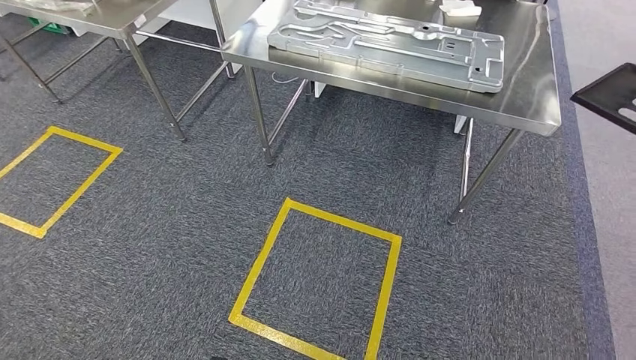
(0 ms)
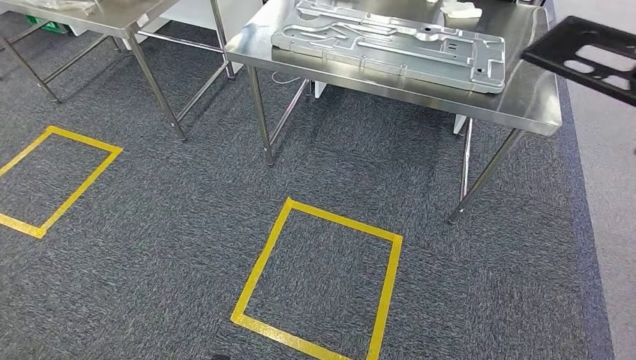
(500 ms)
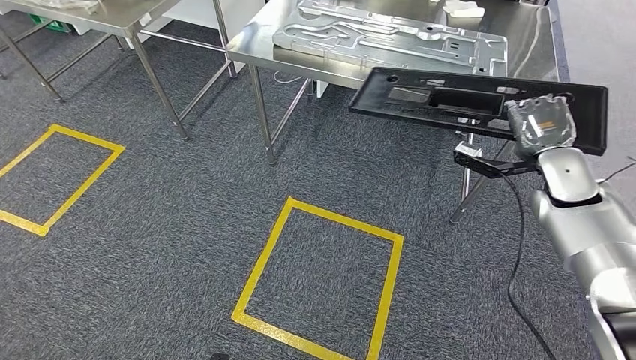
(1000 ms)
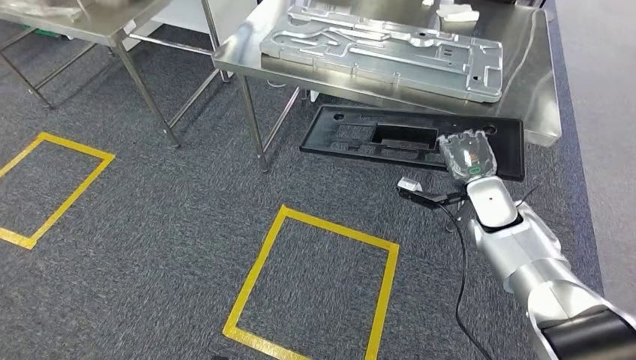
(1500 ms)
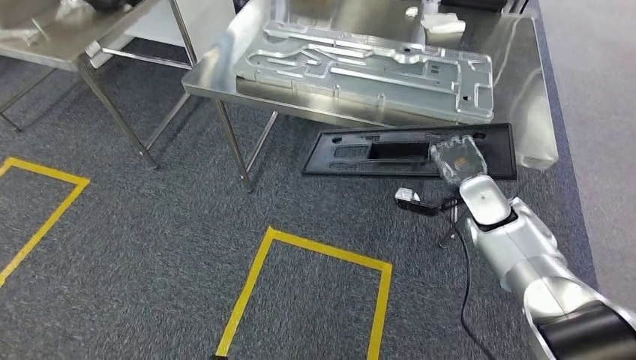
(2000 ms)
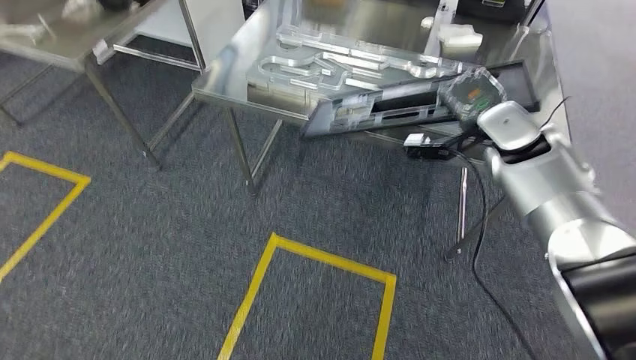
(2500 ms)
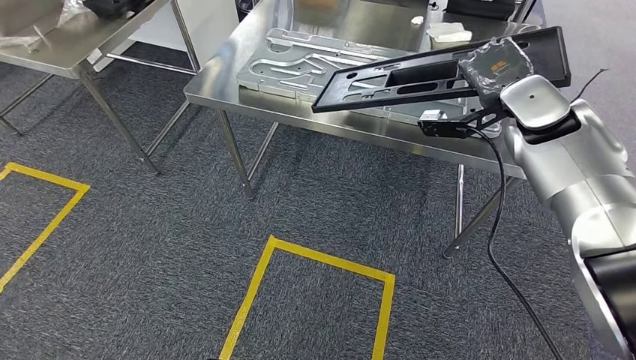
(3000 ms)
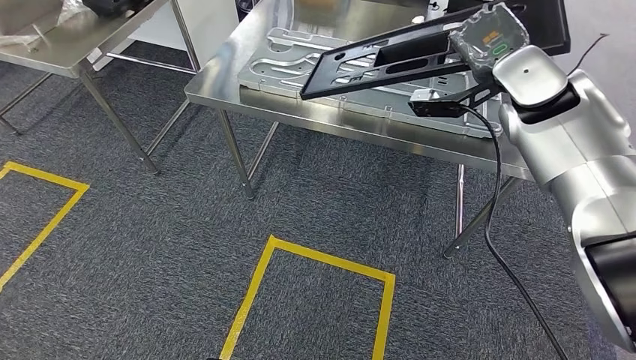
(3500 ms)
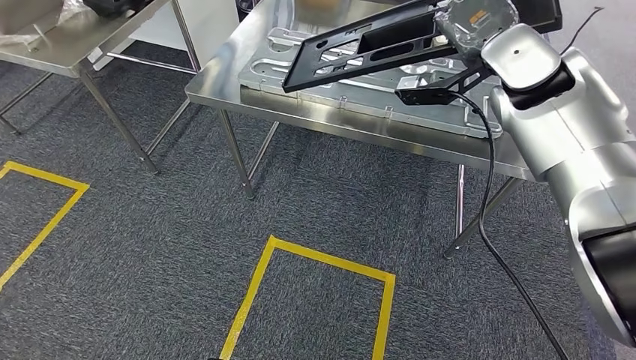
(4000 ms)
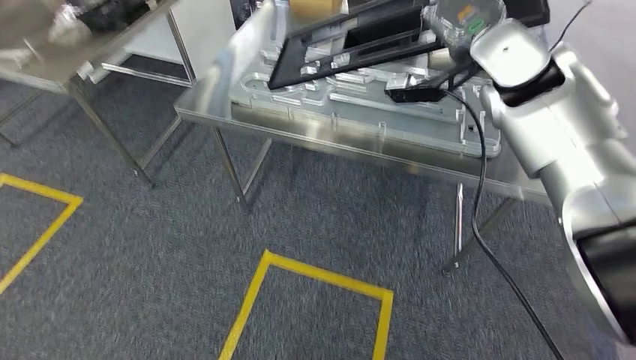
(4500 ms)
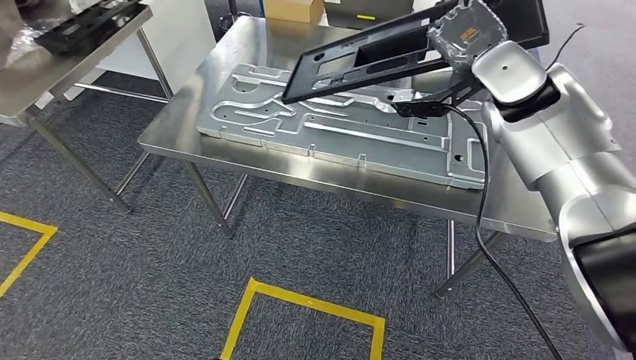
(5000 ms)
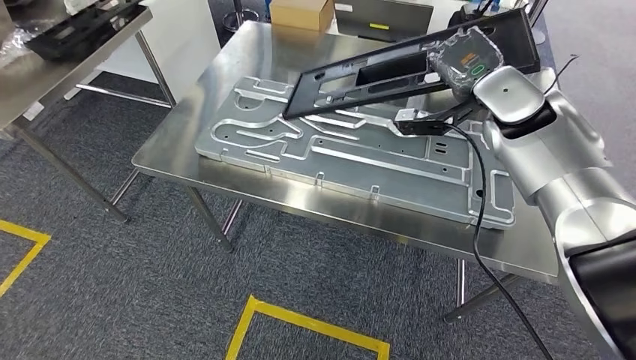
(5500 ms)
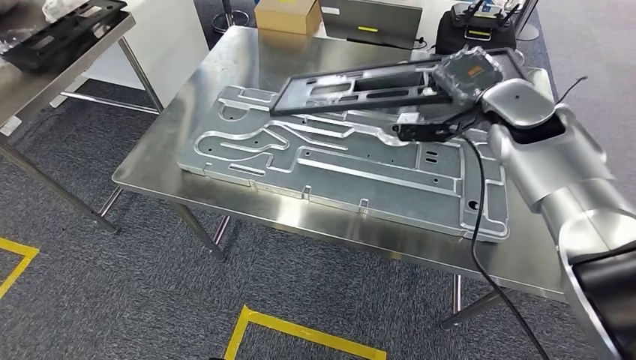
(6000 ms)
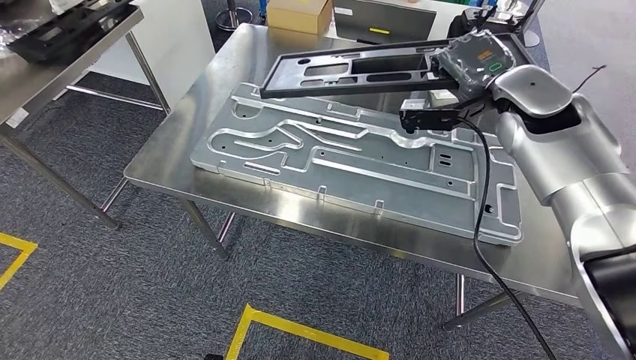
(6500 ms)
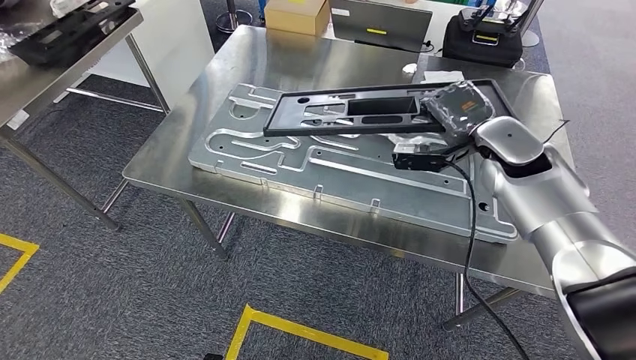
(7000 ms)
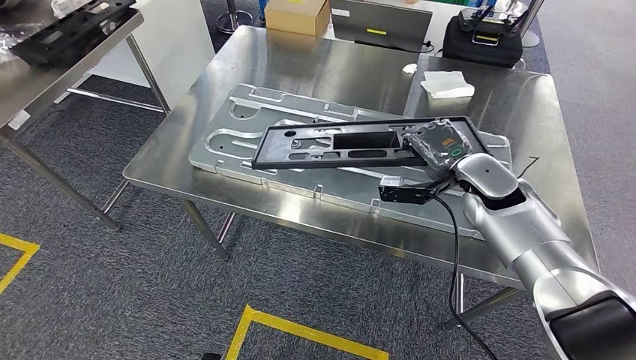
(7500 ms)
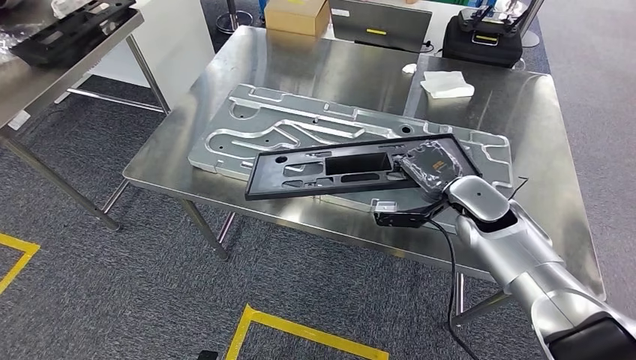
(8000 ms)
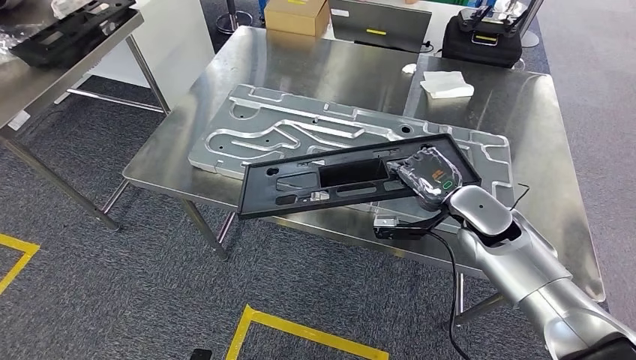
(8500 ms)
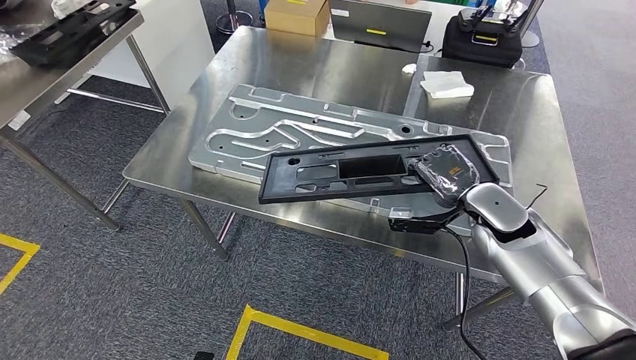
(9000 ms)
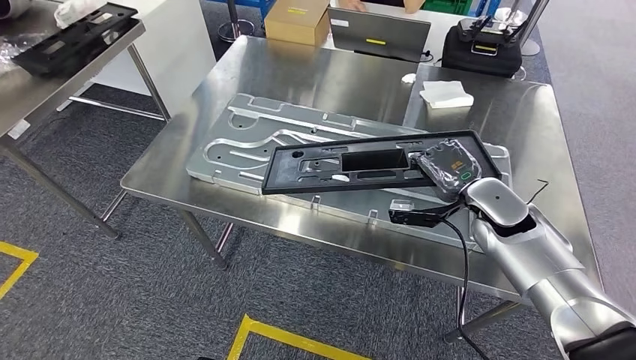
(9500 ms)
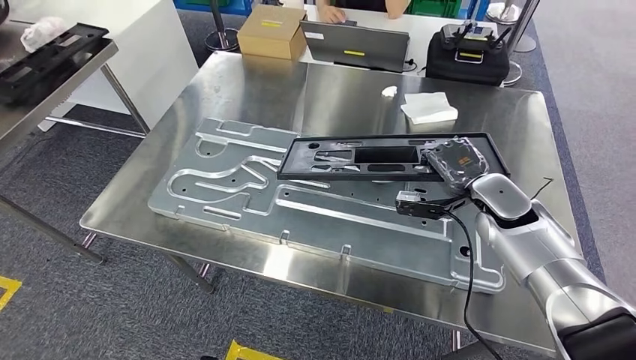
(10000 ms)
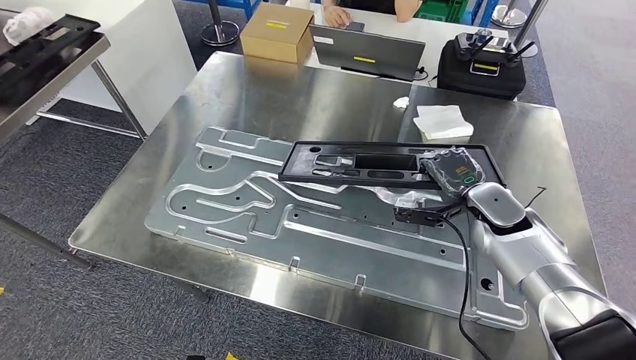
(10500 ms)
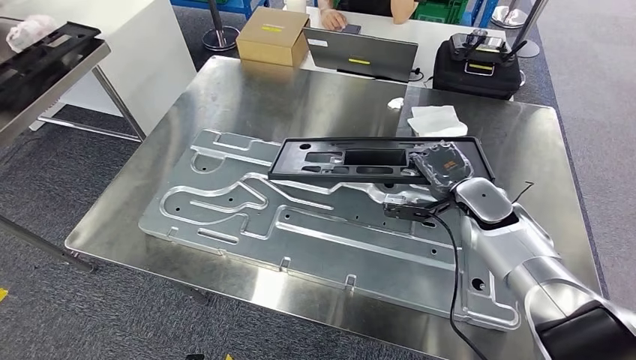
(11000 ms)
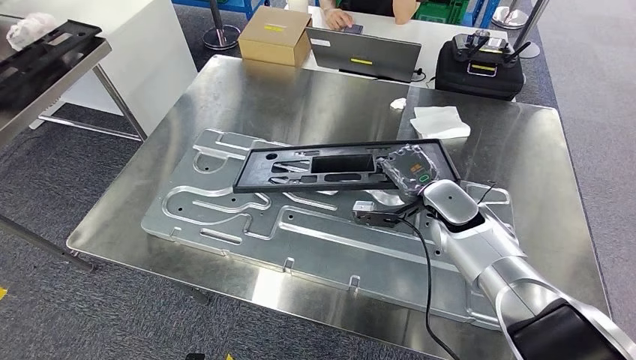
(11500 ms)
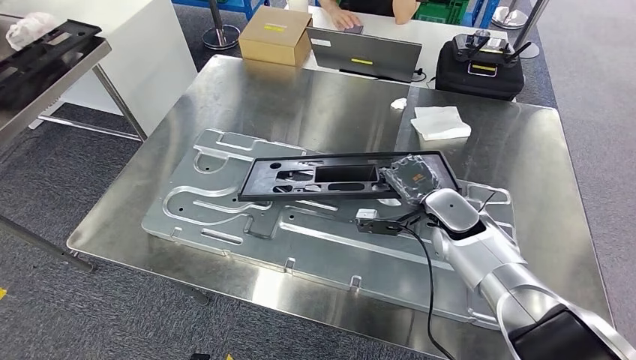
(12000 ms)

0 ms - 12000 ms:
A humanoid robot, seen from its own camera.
Step, 0 ms - 4000 ms: Move the large material to the workbench.

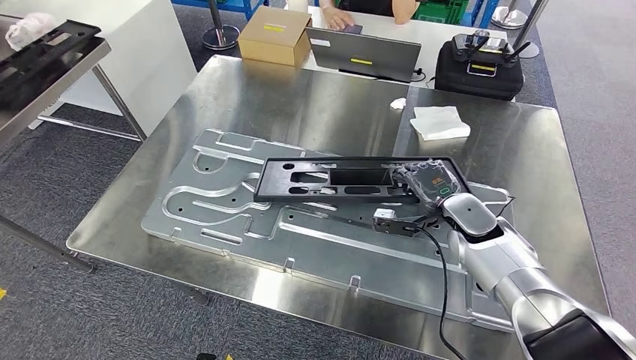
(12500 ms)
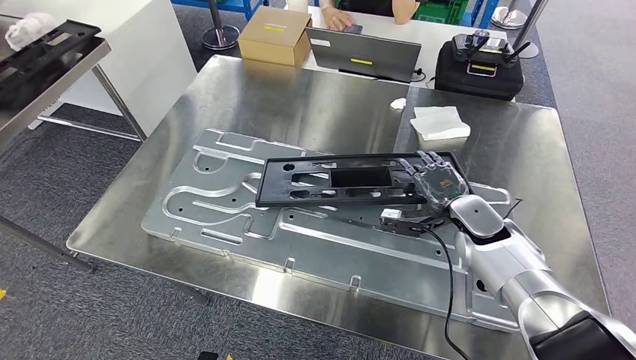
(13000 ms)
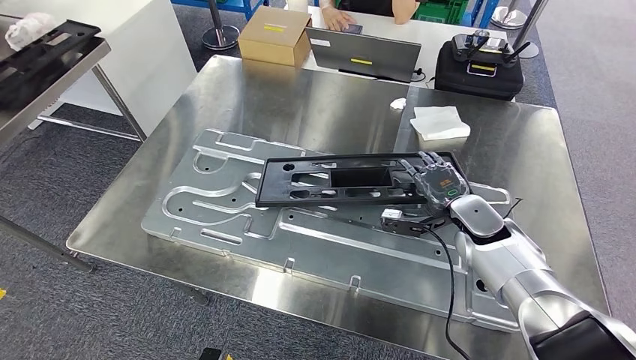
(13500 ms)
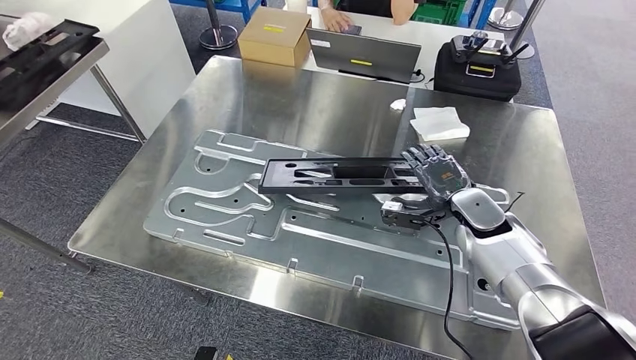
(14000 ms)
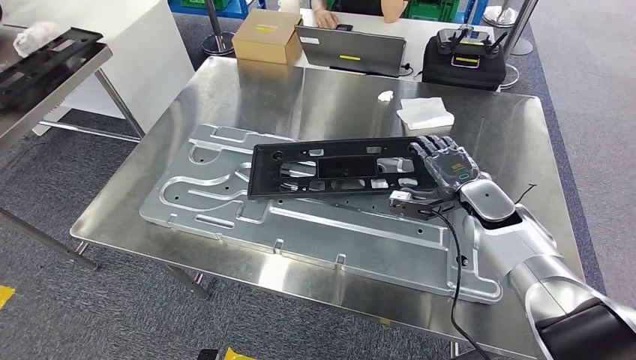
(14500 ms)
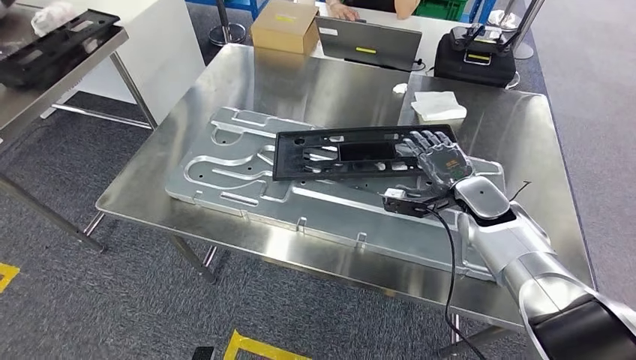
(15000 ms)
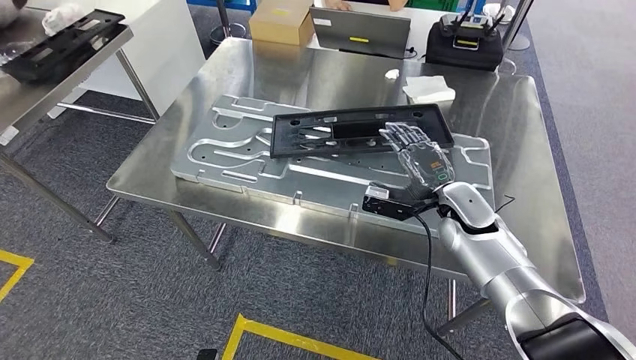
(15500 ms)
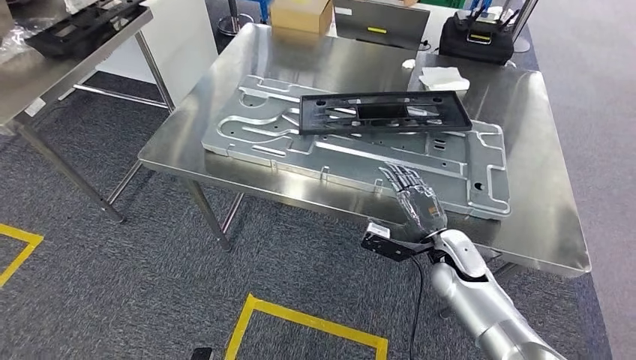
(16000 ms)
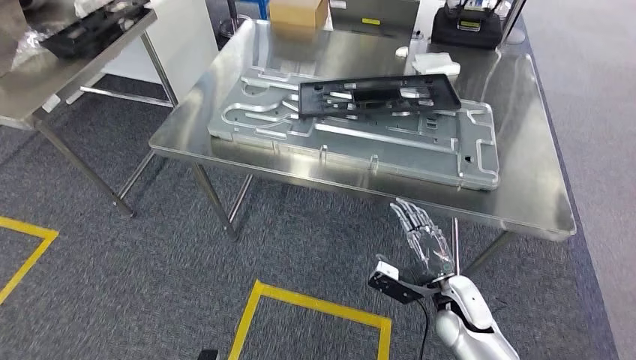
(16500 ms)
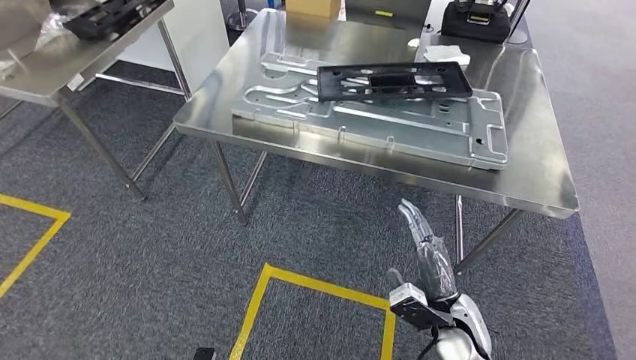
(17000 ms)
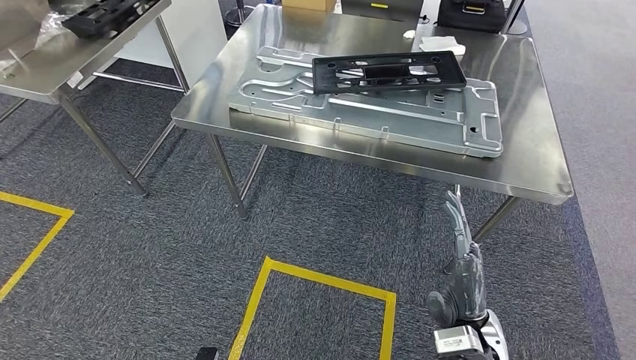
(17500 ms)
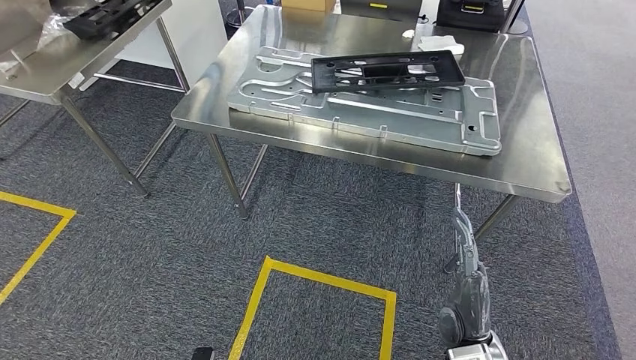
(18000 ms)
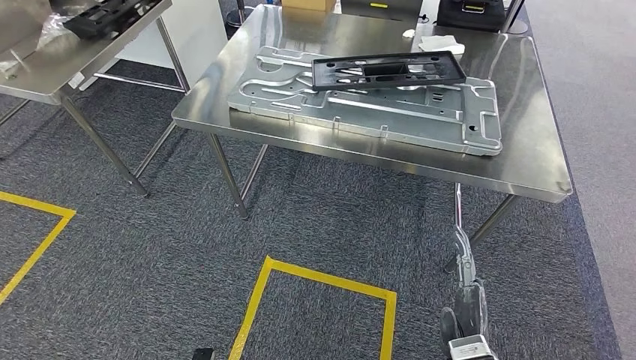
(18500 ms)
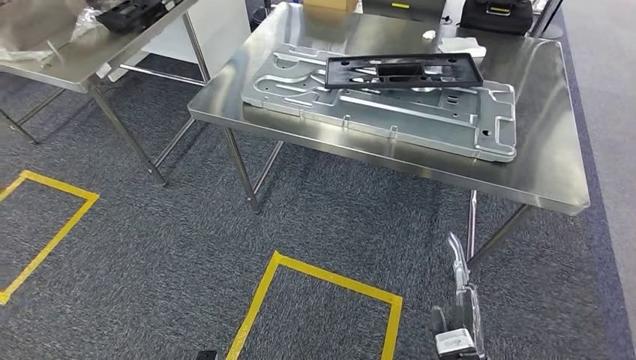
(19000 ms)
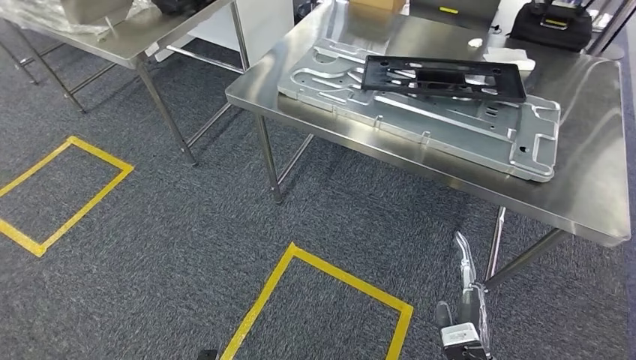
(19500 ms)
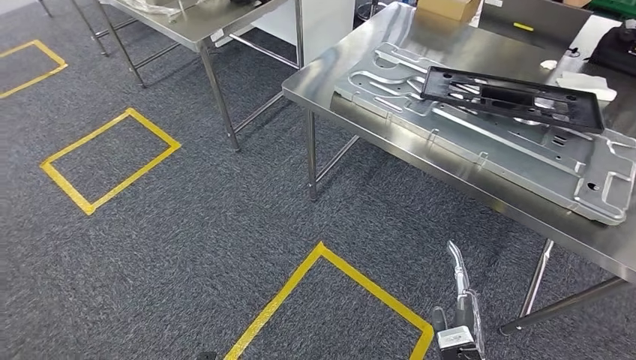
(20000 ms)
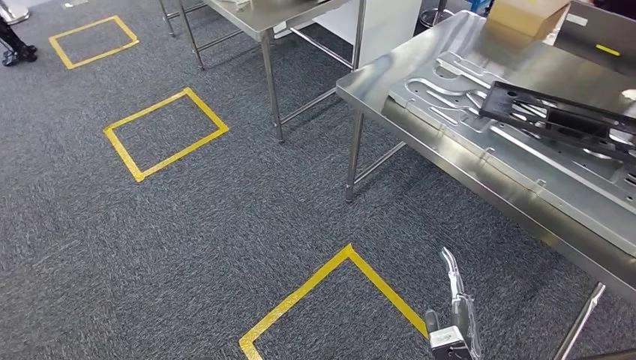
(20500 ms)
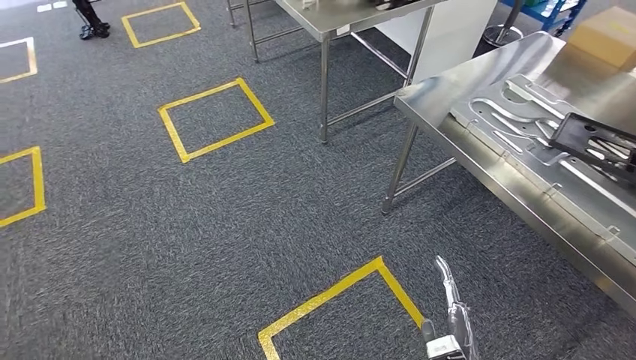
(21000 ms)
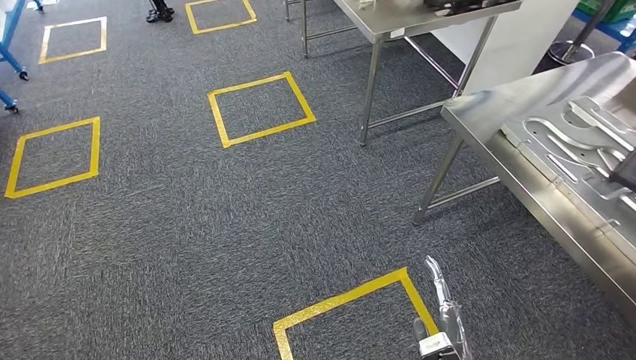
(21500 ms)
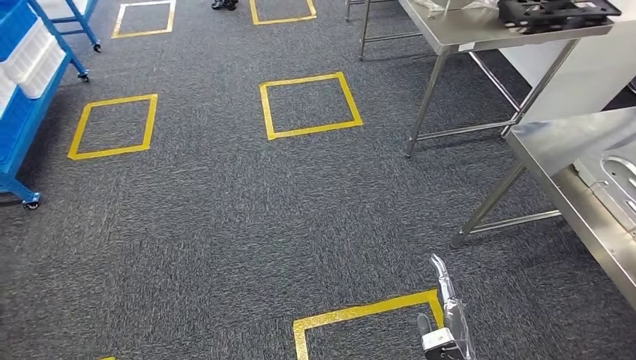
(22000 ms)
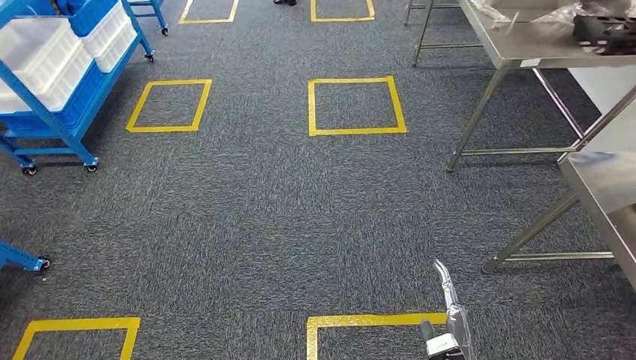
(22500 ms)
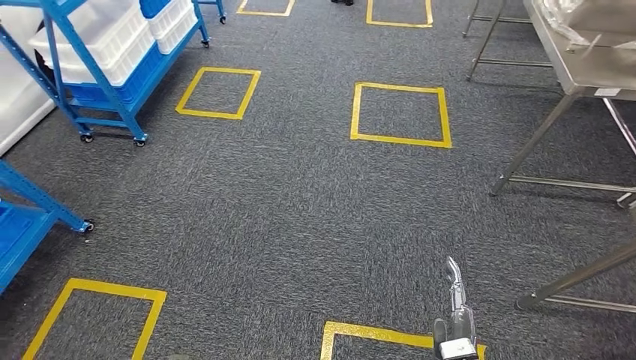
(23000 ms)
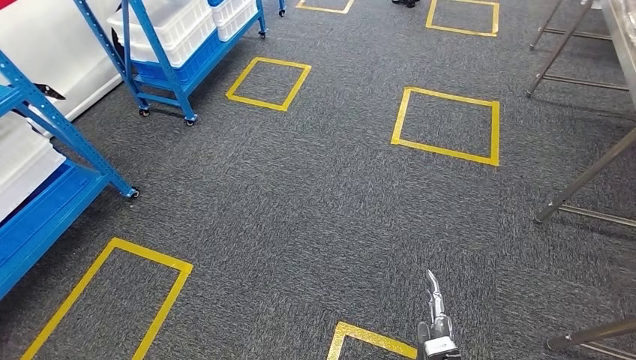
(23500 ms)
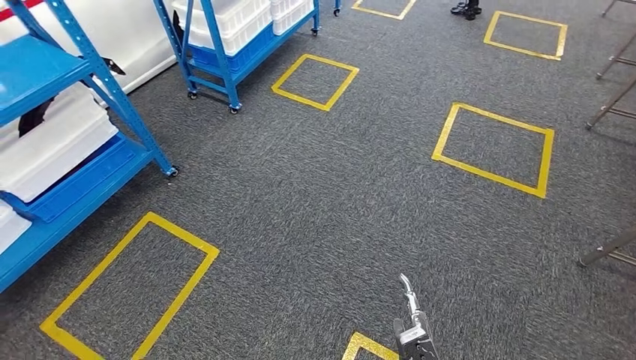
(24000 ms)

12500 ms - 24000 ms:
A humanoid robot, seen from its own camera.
Step, 12500 ms - 15500 ms: Insert the large material into the corresponding slot on the workbench.
